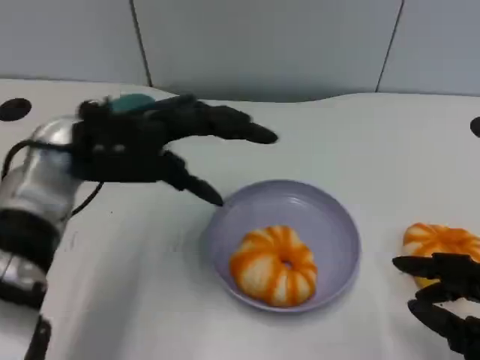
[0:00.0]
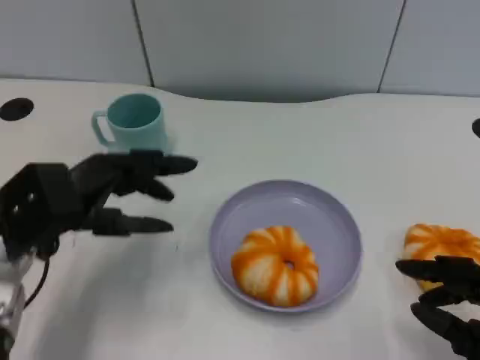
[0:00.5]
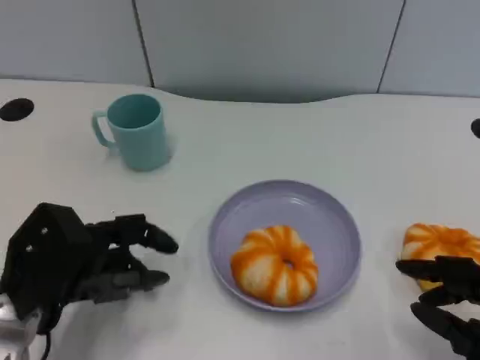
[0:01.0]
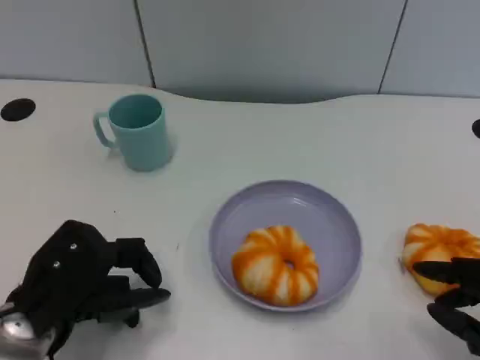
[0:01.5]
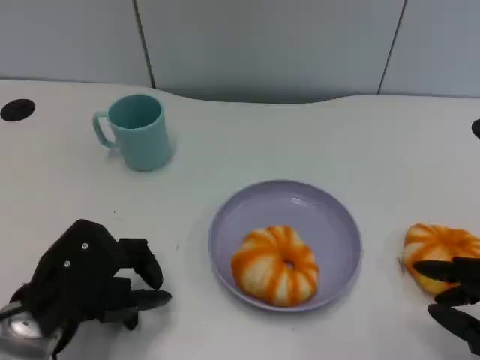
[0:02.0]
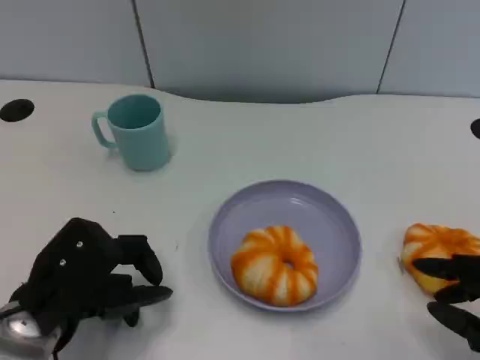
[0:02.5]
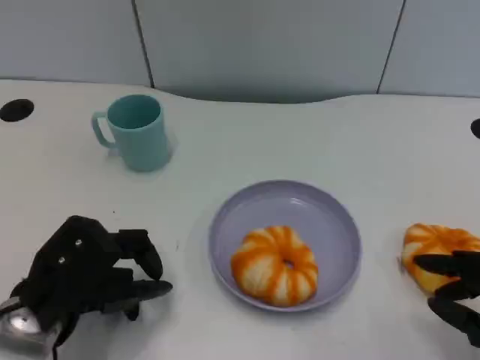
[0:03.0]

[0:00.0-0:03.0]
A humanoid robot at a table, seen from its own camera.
Task of the whole recording: Grasp the bread from the table and place it into the plate.
0:00.0 to 0:01.5: The left hand goes roughly 15 cm backward and downward.
0:01.5 to 0:03.0: Neither hand changes place.

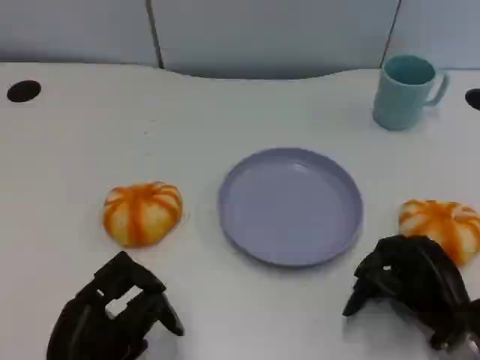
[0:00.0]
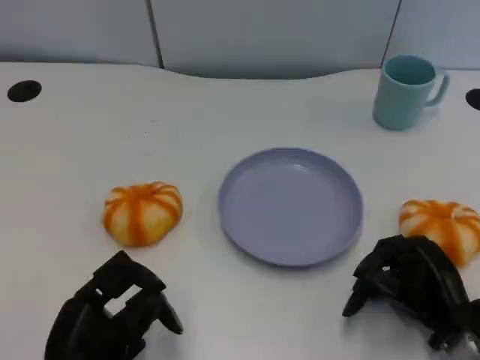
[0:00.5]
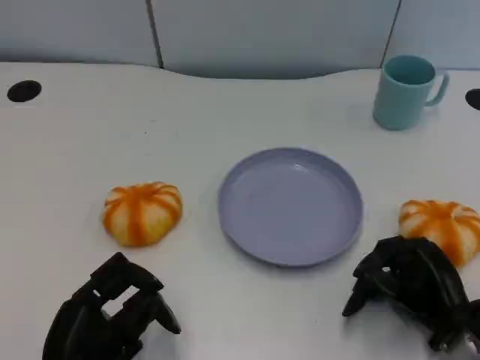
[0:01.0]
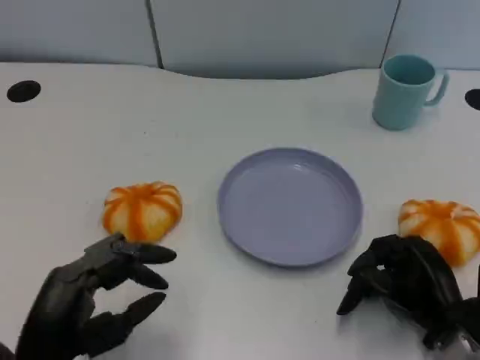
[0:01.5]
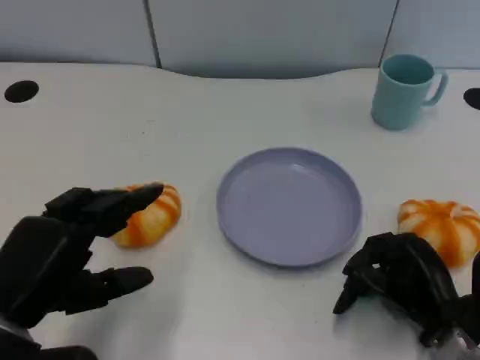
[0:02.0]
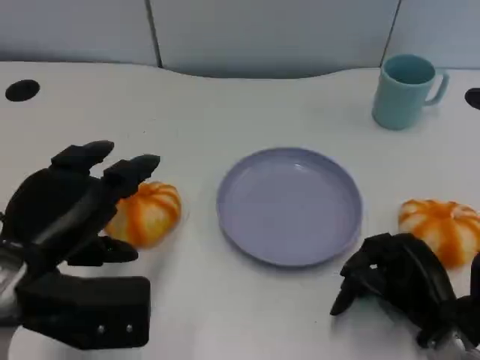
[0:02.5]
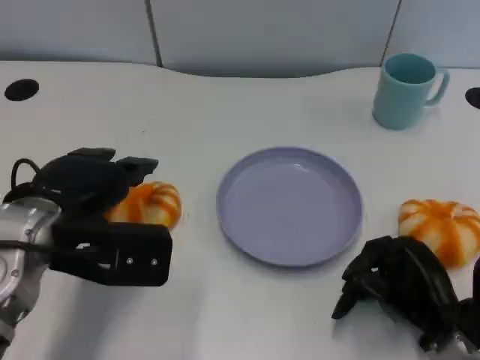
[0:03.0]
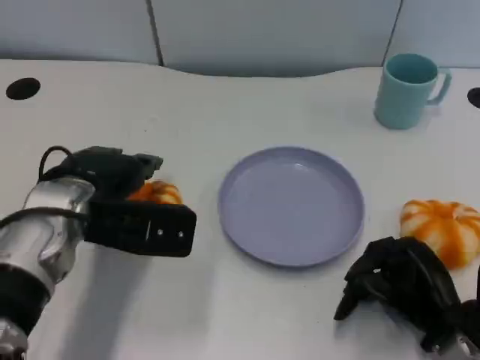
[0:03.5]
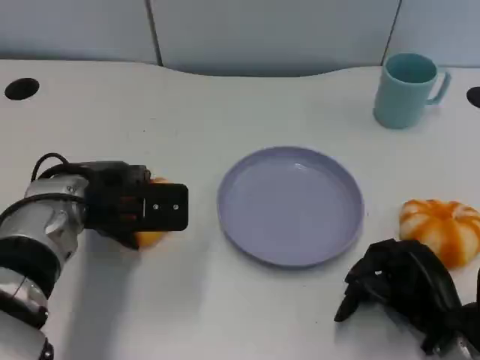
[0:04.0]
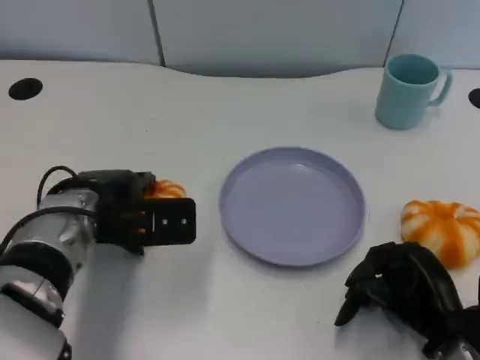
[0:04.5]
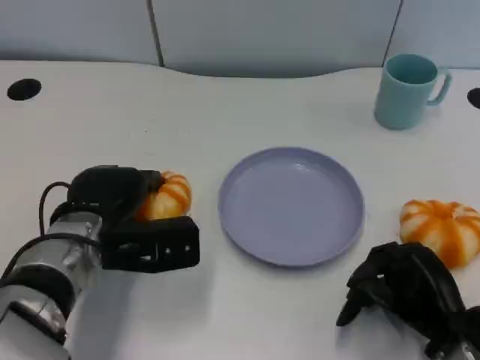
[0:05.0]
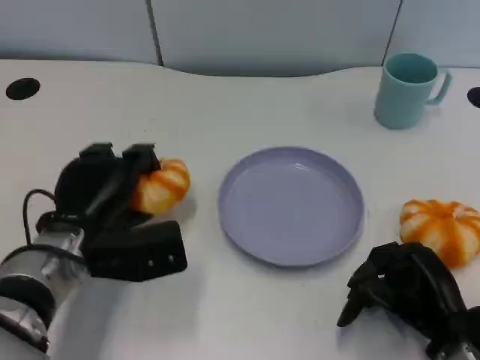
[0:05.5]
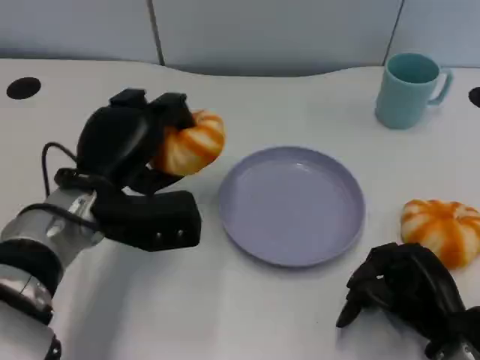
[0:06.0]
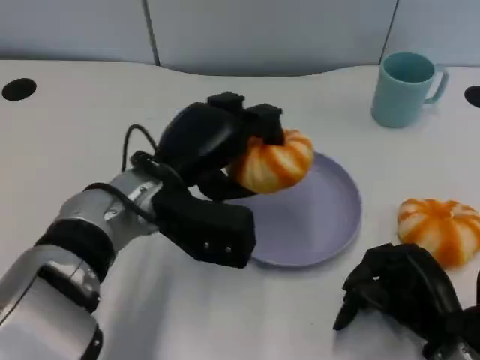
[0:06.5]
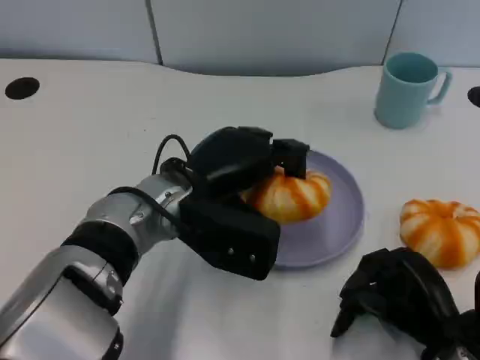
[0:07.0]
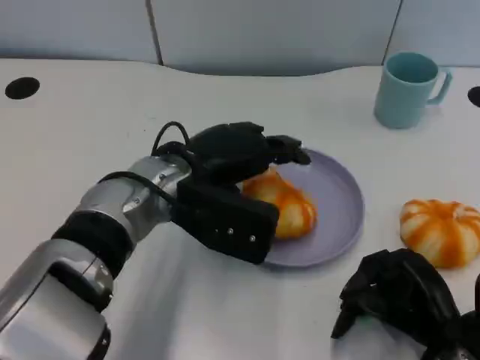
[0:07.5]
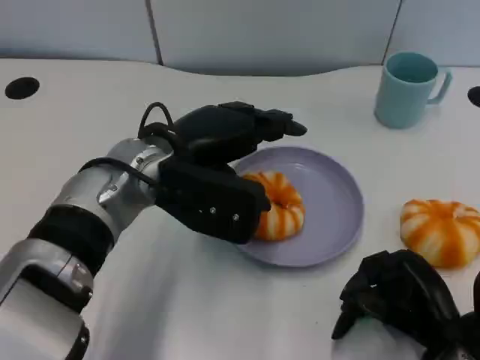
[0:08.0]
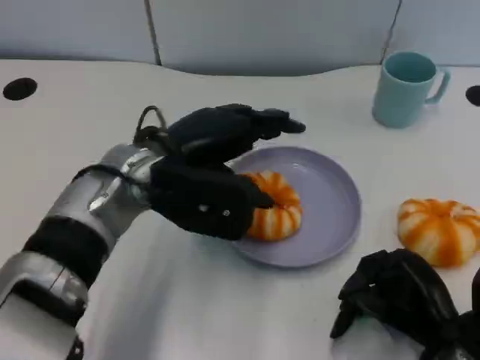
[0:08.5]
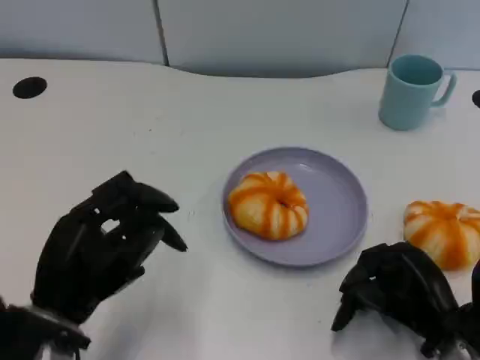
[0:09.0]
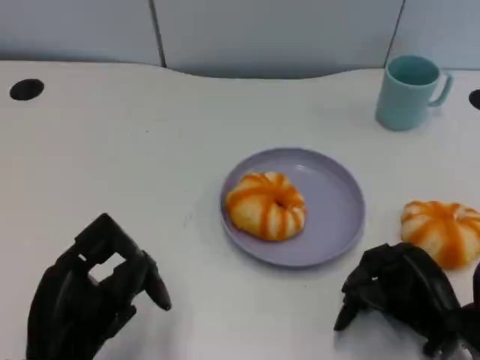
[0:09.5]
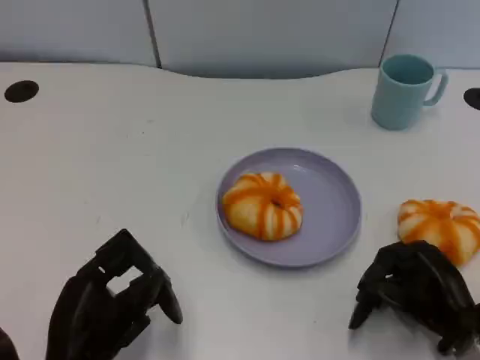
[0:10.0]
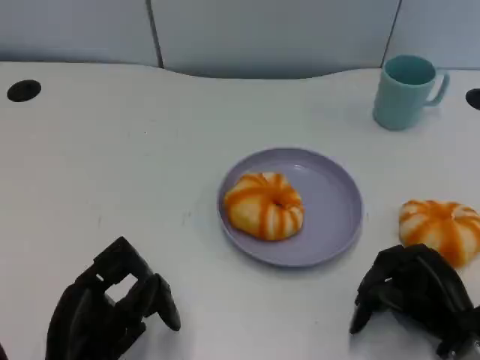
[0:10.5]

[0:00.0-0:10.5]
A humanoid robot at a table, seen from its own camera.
Task of the whole recording: Grasp the bread from the table and place it into the plate.
0:00.0 to 0:02.0: The left hand goes about 10 cm upward.
0:02.0 to 0:04.0: The left hand is displaced forward by roughly 15 cm.
0:04.0 to 0:06.5: The left hand moves to the right, approximately 10 cm.
0:08.5 to 0:10.5: The left hand shifts approximately 20 cm backward, downward and to the left.

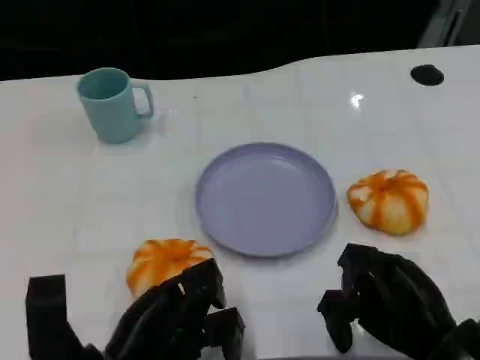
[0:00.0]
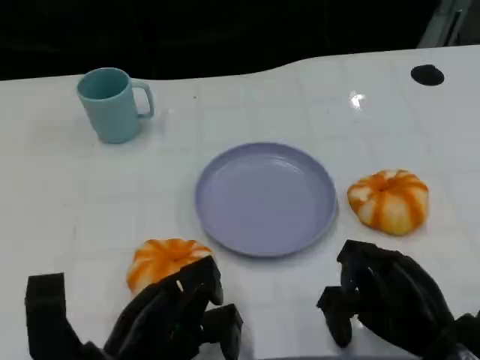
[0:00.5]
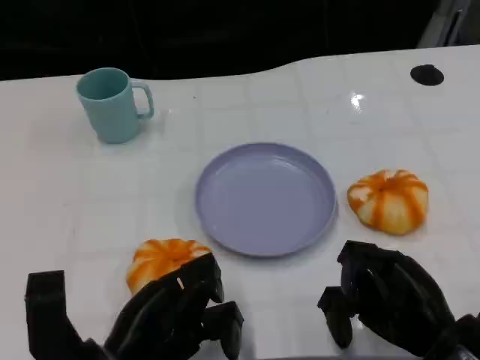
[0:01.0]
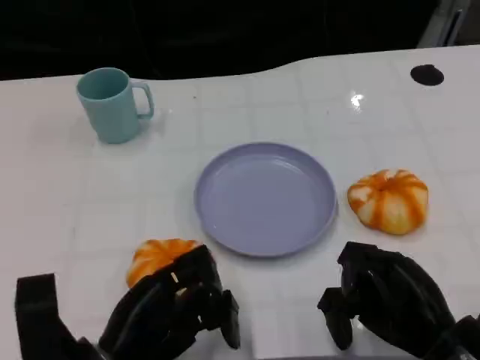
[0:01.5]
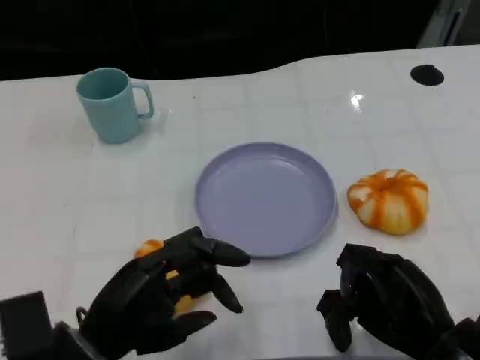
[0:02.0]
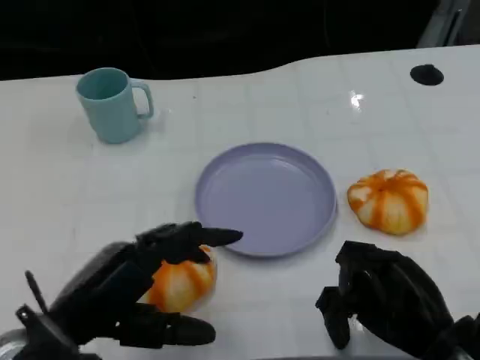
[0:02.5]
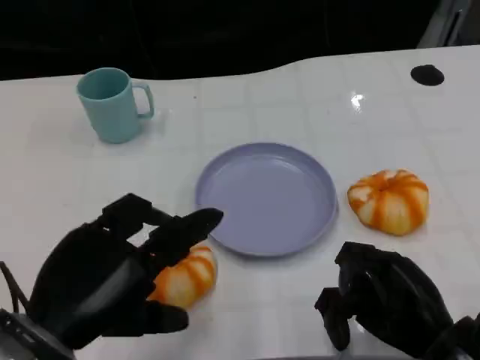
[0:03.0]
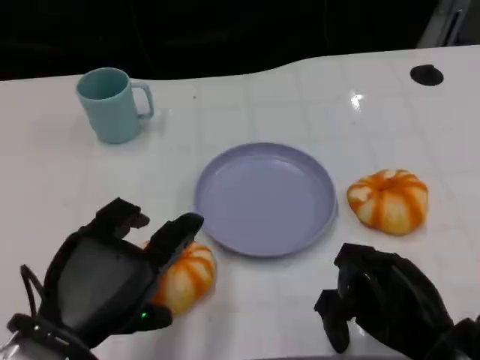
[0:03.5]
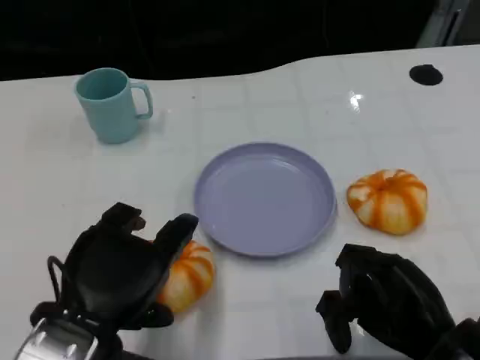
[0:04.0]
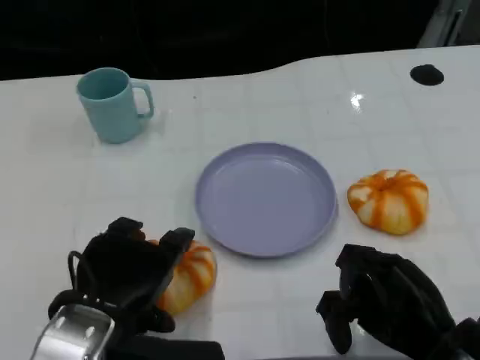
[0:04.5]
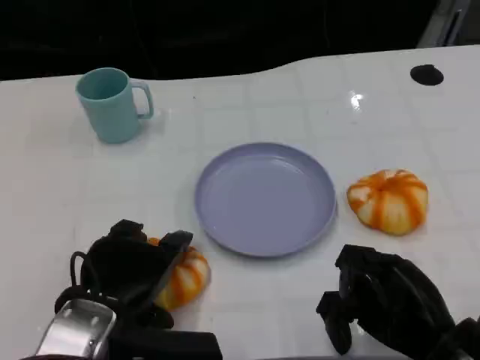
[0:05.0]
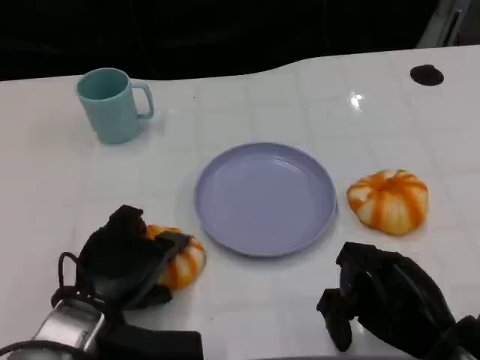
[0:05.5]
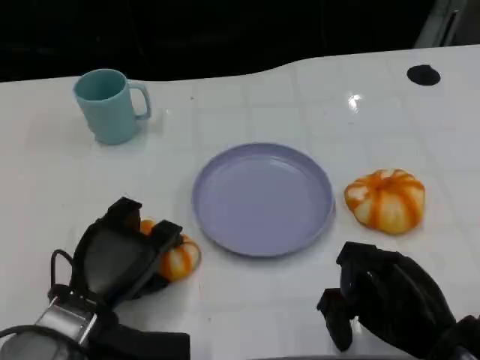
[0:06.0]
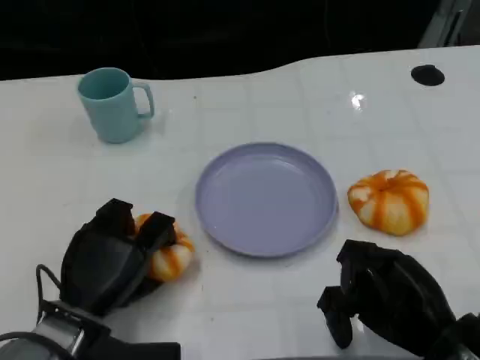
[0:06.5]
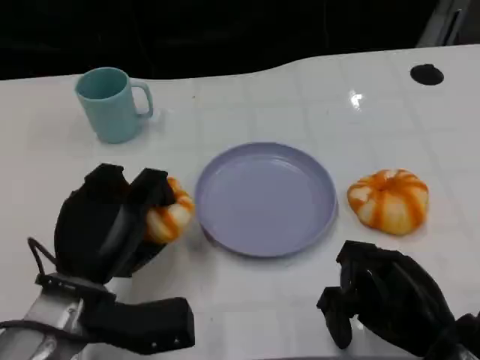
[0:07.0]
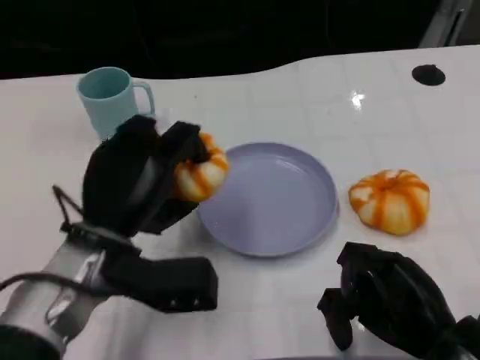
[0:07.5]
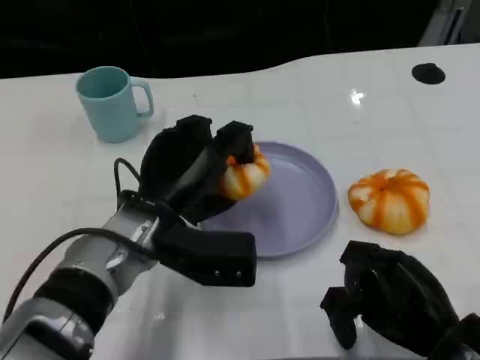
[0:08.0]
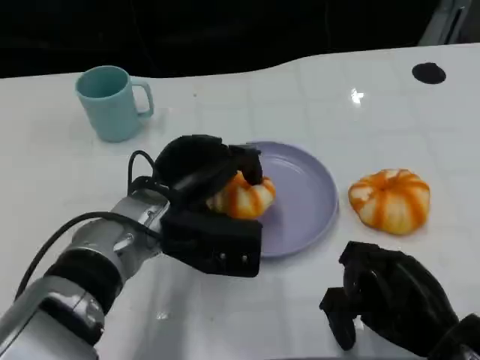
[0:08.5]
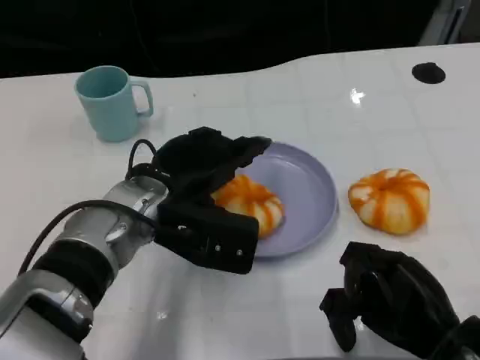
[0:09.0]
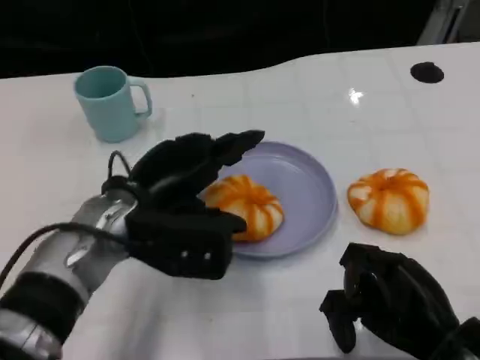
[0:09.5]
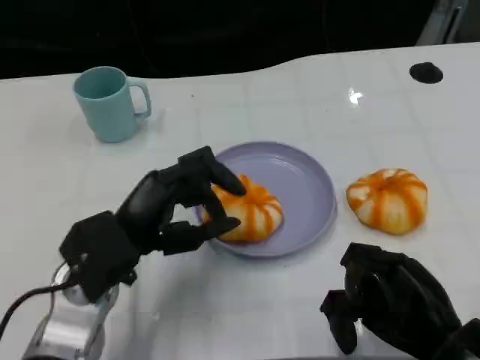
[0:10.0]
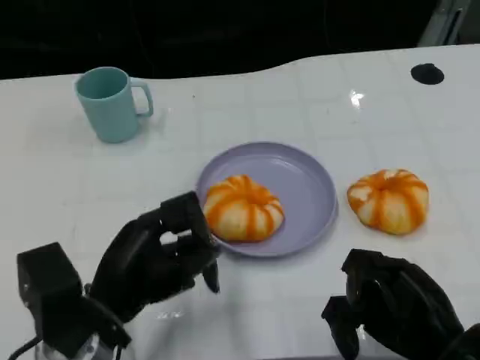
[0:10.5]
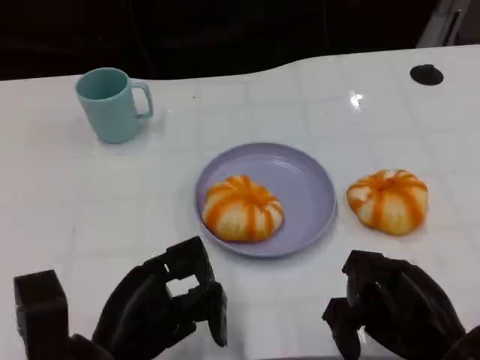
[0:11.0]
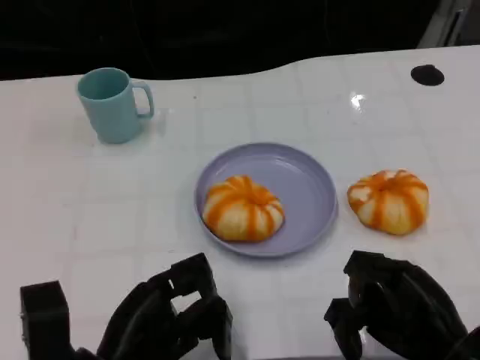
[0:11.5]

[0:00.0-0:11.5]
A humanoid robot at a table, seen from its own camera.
Task of the whole recording: Grasp the bread from the table and place it into the plate.
0:02.0 to 0:04.0: The left hand goes some 5 cm upward.
0:04.0 to 0:06.0: The left hand travels downward and forward by approximately 10 cm.
0:06.0 to 0:07.5: The left hand shifts roughly 5 cm upward.
0:09.5 to 0:11.5: The left hand moves backward and downward, about 15 cm.

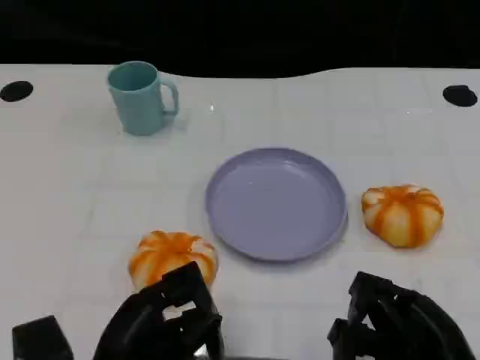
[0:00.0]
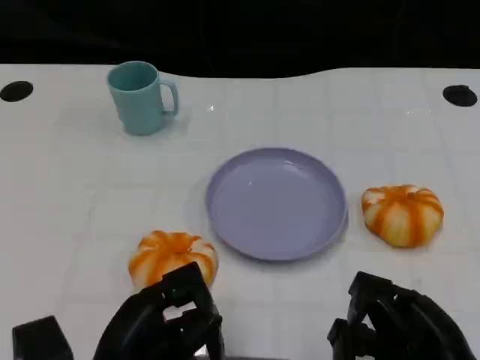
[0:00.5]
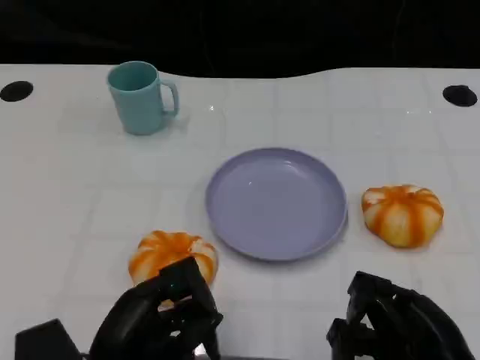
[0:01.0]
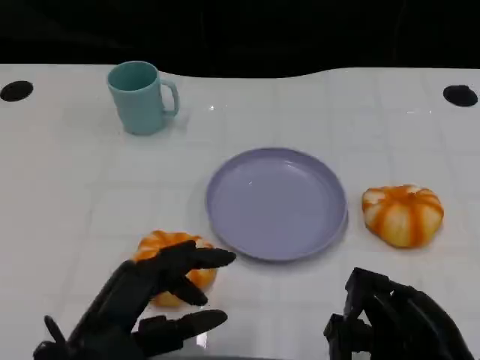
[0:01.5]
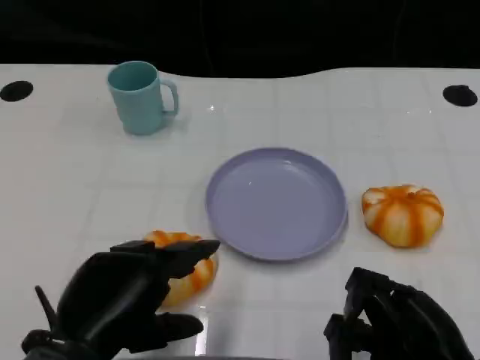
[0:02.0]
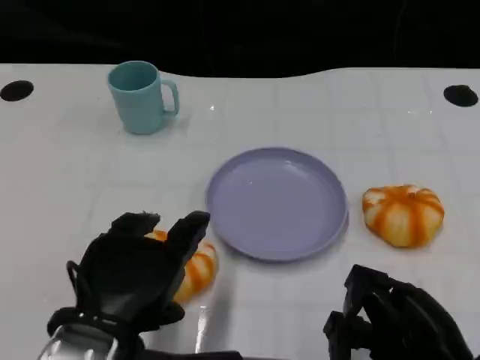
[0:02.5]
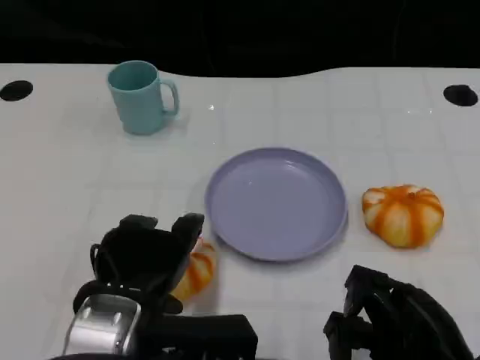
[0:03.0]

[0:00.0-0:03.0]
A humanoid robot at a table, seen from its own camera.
Task of the whole recording: Grasp the bread from the table and place it into the plate.
0:00.0 to 0:01.5: The left hand heads upward, covering about 5 cm.
0:01.5 to 0:03.0: The left hand shifts by roughly 5 cm.
